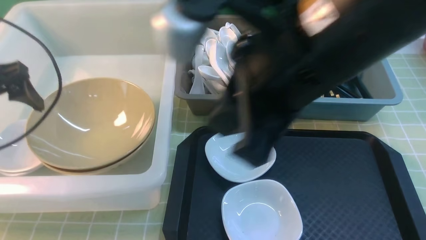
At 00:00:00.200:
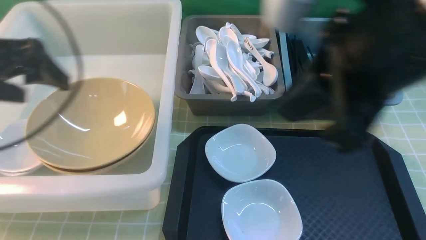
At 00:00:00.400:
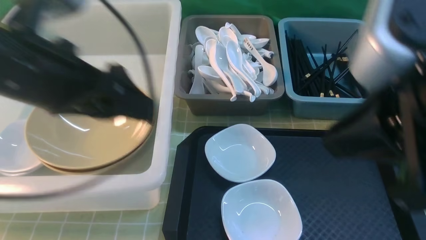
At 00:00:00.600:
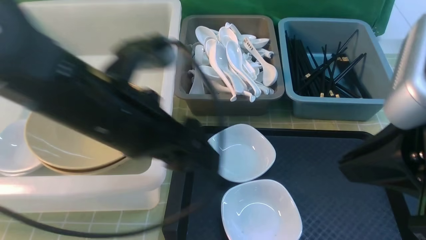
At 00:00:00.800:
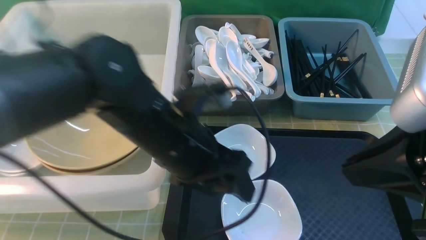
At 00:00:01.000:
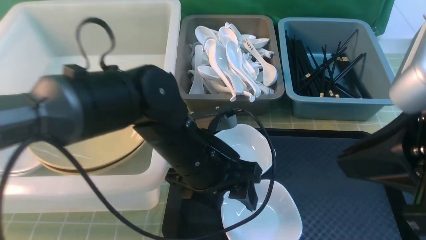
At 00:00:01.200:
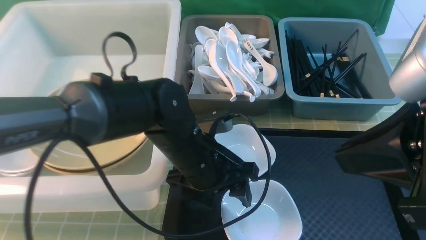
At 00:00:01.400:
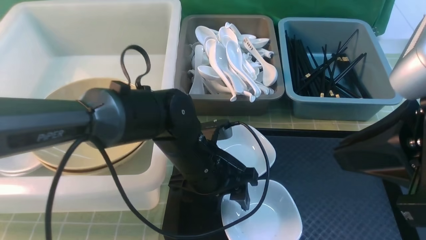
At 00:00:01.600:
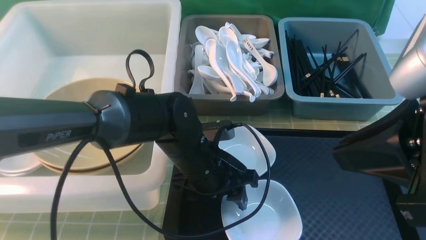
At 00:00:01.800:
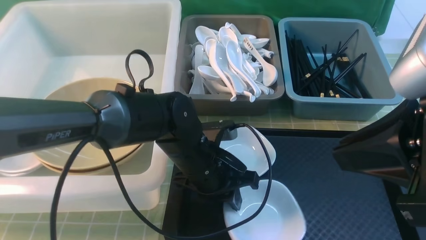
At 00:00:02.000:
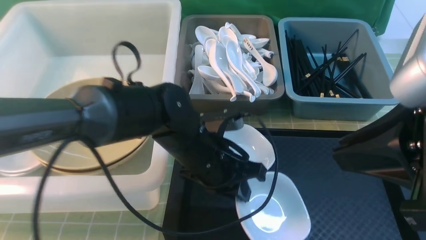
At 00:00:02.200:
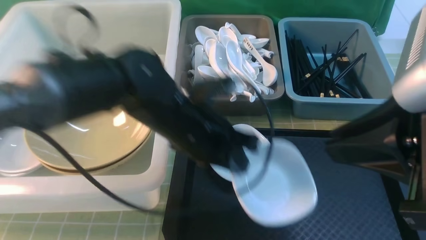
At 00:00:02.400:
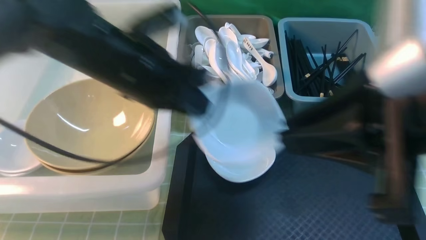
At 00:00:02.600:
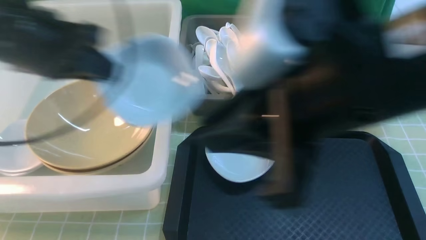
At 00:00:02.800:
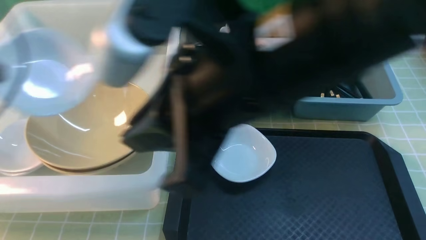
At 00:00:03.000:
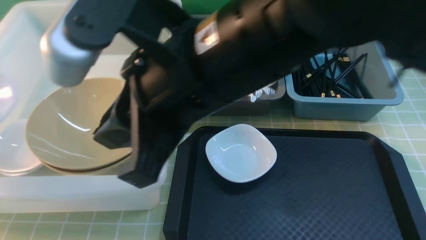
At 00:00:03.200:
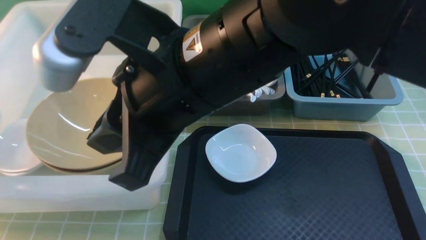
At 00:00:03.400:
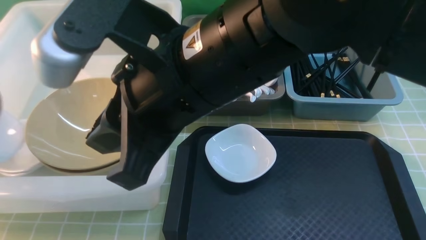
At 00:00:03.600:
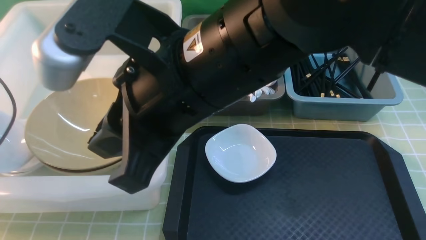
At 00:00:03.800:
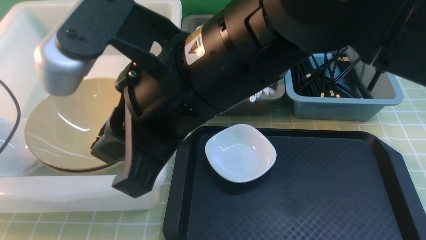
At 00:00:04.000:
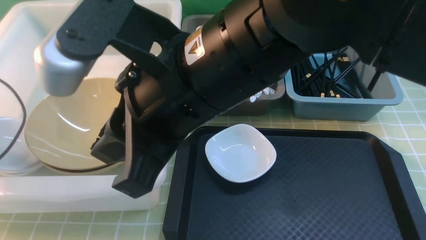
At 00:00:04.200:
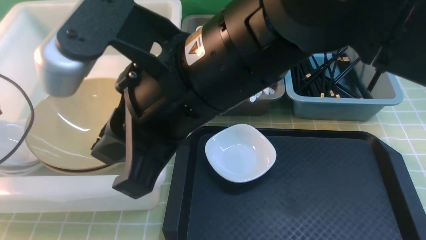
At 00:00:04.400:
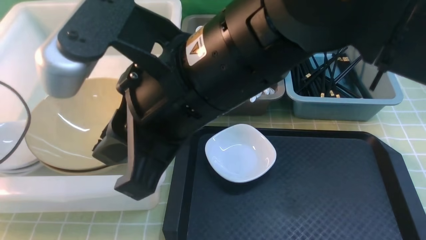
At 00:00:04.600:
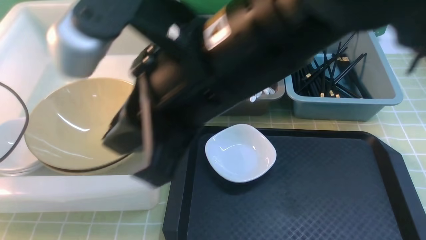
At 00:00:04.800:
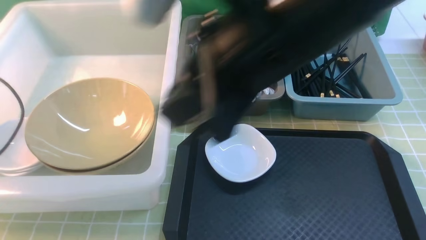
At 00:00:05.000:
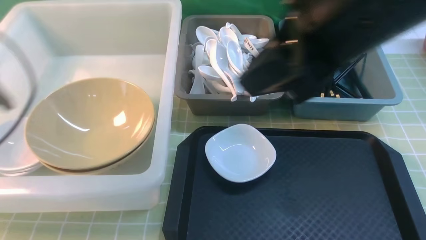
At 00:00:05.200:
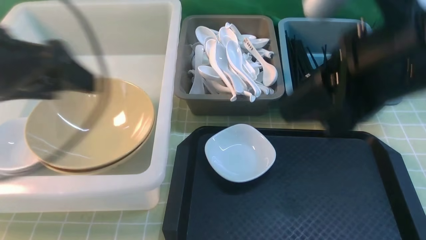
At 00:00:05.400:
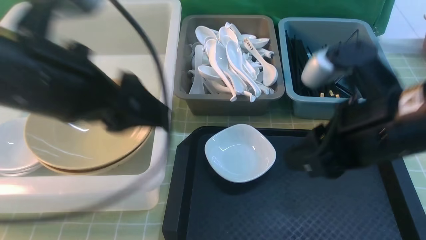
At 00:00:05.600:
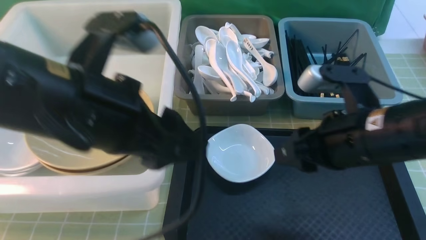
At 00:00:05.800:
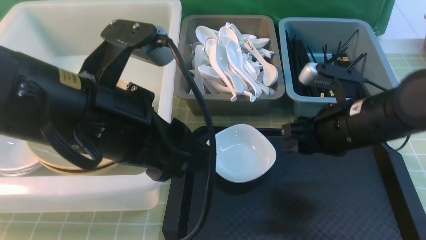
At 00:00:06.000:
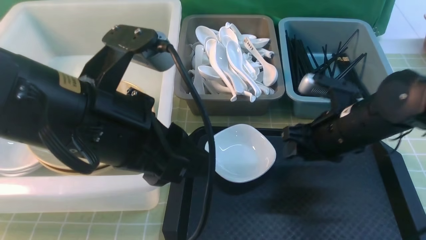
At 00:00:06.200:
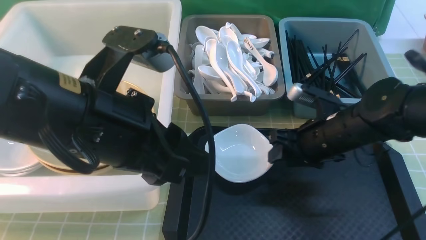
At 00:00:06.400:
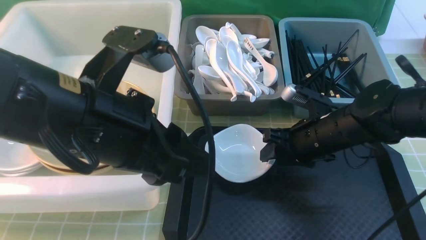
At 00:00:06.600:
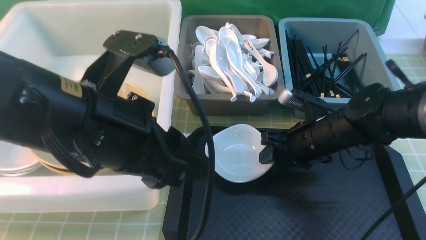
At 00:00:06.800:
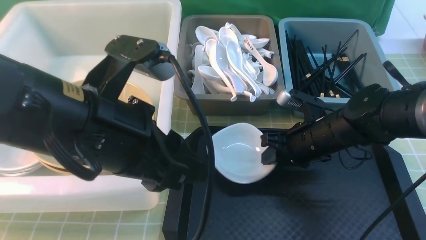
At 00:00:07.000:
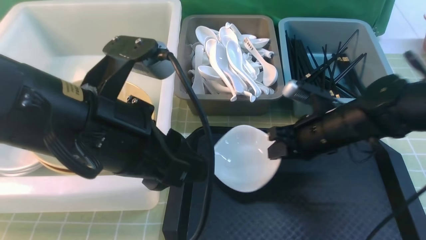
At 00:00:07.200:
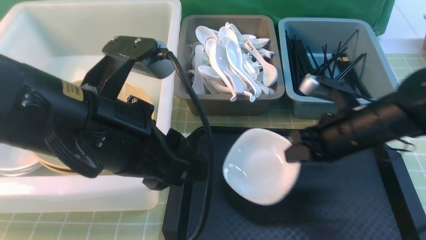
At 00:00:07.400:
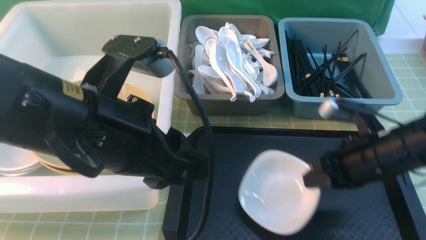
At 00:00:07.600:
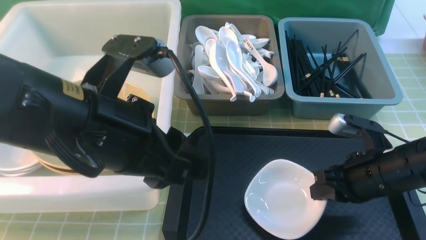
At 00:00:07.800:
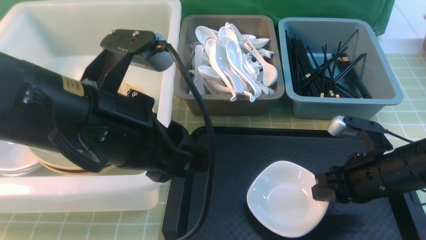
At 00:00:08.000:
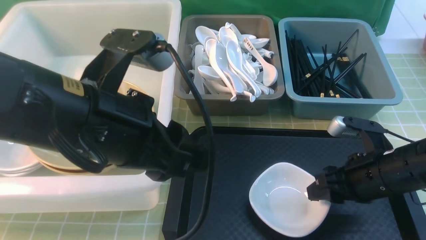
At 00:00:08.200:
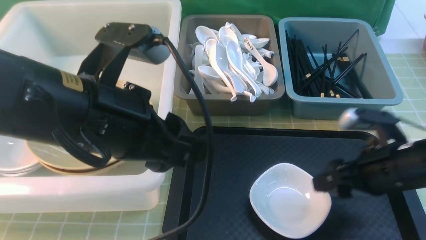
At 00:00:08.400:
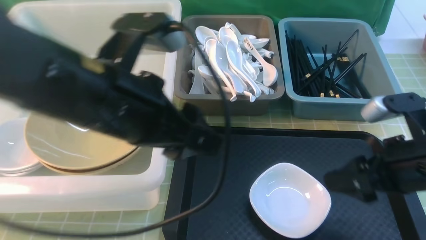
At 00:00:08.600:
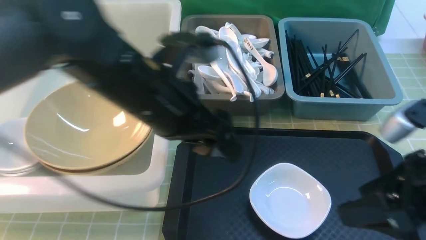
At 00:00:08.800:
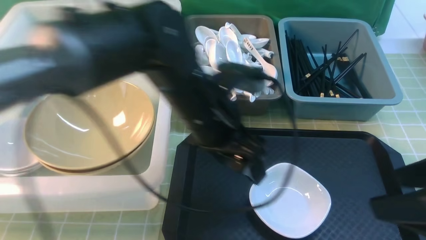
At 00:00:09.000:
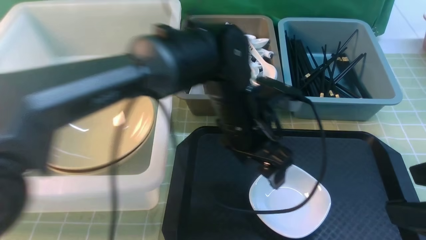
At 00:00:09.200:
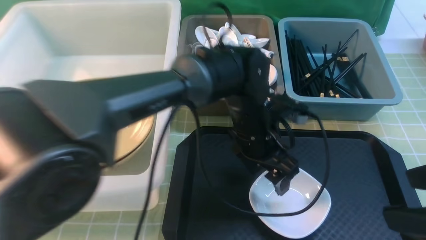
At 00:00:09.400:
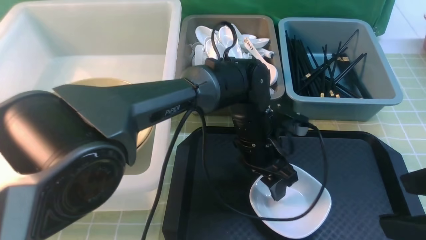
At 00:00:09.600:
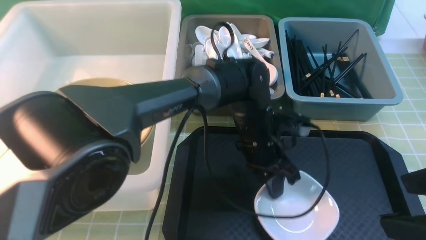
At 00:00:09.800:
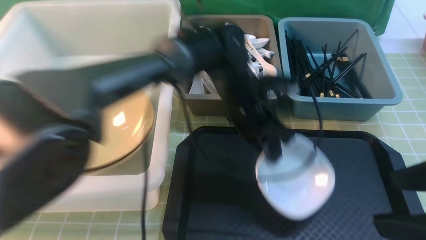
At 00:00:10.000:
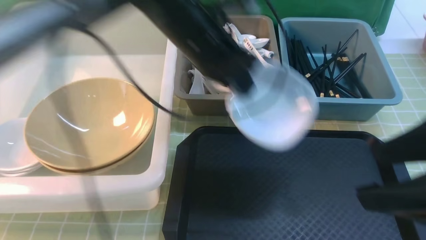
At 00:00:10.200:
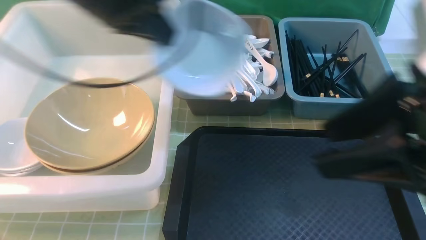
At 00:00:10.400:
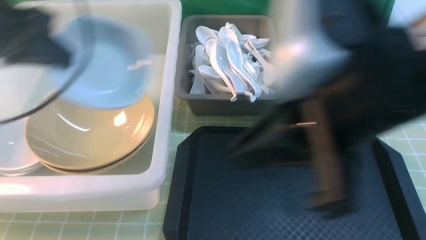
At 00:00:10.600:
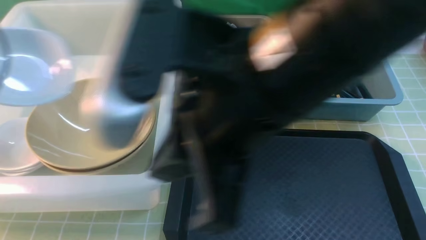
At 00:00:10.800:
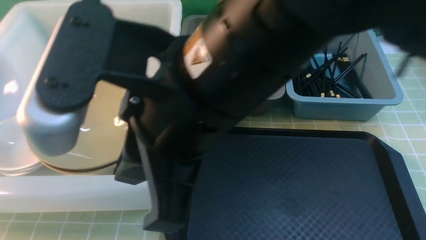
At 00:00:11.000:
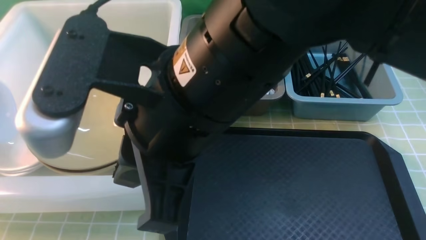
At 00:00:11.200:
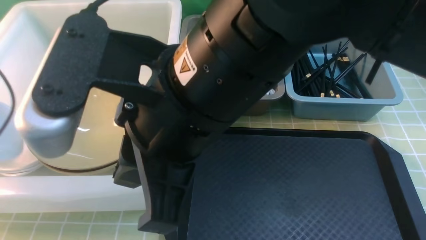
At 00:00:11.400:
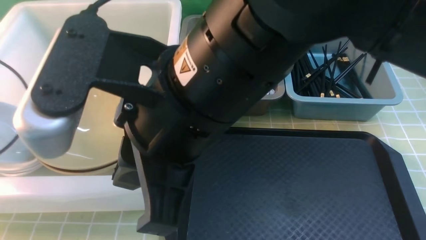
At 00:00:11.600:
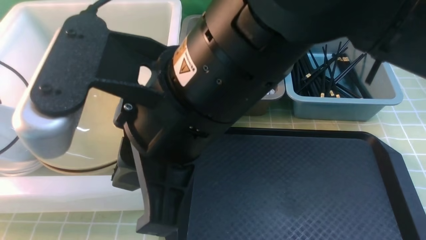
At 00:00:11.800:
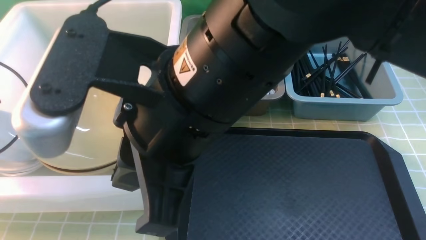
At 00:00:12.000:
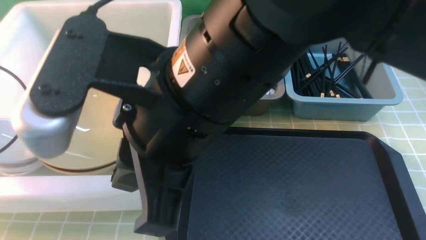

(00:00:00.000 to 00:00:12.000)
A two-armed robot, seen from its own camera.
Task of the whole recording: on green table put chopsticks spoon bowls plates into blue grey white boxes.
Step, 00:00:00.000 - 00:00:01.800: use the left arm to grab the plate.
Step, 00:00:02.000 - 00:00:04.800: use the left arm to put the plate into the large storage box on the left.
Step, 00:00:05.000 - 00:00:07.000: use the right arm to grab the plate.
Step, 00:00:07.200 - 00:00:08.600: use the right arm to put the plate on the tray.
Step, 00:00:08.800 - 00:00:09.800: use the left arm to grab the plate.
00:00:00.000 - 00:00:01.600: The left gripper is displaced to the right and downward by roughly 30 cm, and closes its fingers; the right gripper travels to the right and backward by roughly 10 cm.
00:00:01.600 - 00:00:03.000: The left gripper is displaced to the left and upward by some 40 cm, and closes its fingers. The right gripper moves to the left, some 20 cm.
00:00:03.000 - 00:00:04.400: The left gripper heads downward and forward, covering some 15 cm, and opens.
00:00:04.400 - 00:00:06.000: The left gripper goes roughly 30 cm to the right and backward; the right gripper travels downward, to the right and forward by roughly 30 cm, and opens up.
00:00:06.000 - 00:00:07.600: The right gripper shifts some 5 cm backward, and closes up.
00:00:07.600 - 00:00:09.000: The left gripper shifts approximately 20 cm to the right, forward and downward, and opens its fingers, while the right gripper is displaced upward and backward by roughly 20 cm, and opens.
00:00:09.000 - 00:00:10.400: The right gripper heads to the left and upward, covering about 20 cm, and closes, while the left gripper shifts roughly 35 cm to the left and upward, and closes its fingers.
00:00:10.400 - 00:00:12.000: The right gripper heads to the left, covering roughly 10 cm. The left gripper shifts about 15 cm downward and to the left, and opens.

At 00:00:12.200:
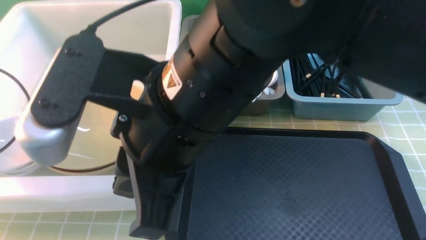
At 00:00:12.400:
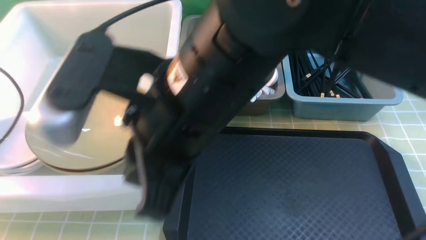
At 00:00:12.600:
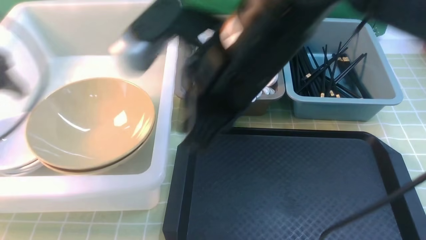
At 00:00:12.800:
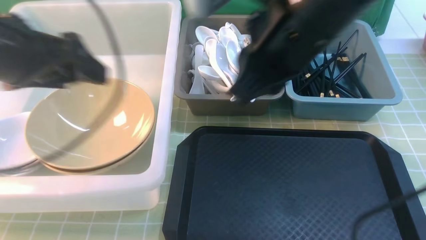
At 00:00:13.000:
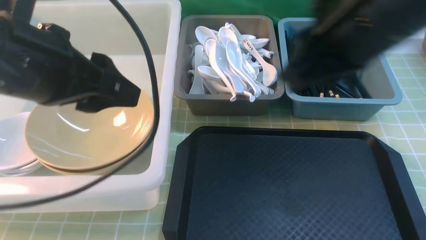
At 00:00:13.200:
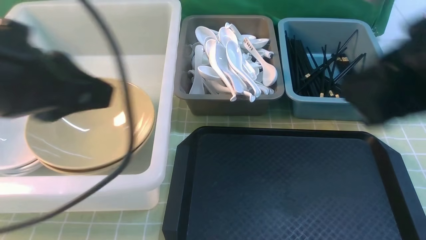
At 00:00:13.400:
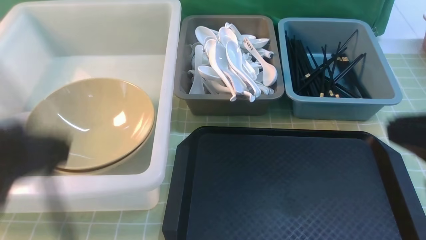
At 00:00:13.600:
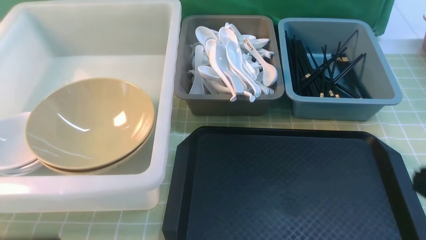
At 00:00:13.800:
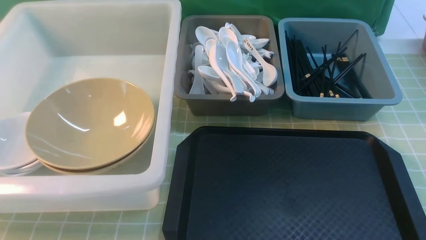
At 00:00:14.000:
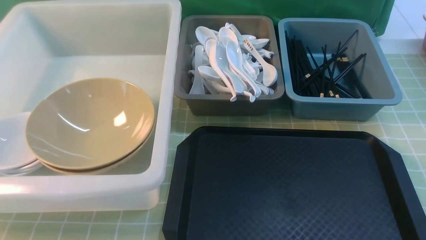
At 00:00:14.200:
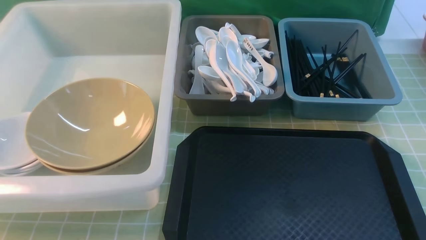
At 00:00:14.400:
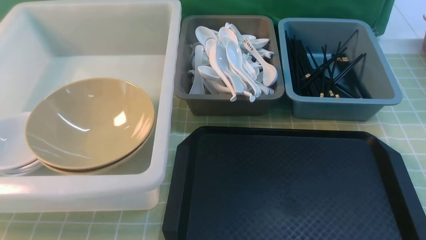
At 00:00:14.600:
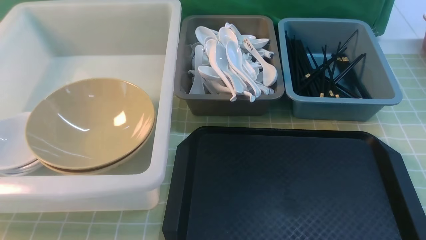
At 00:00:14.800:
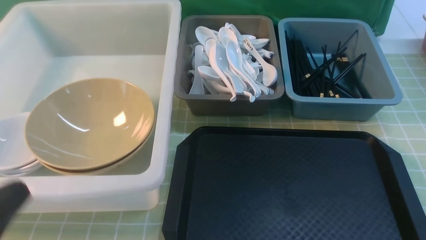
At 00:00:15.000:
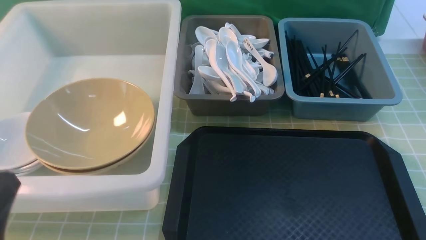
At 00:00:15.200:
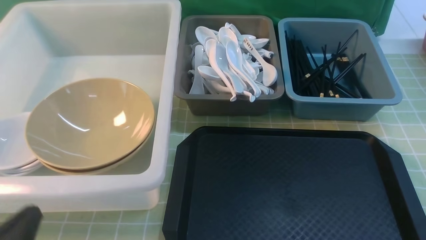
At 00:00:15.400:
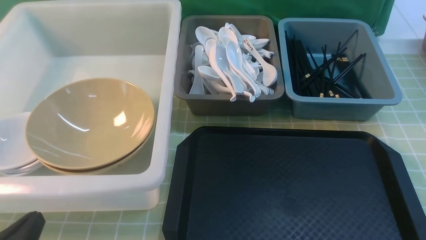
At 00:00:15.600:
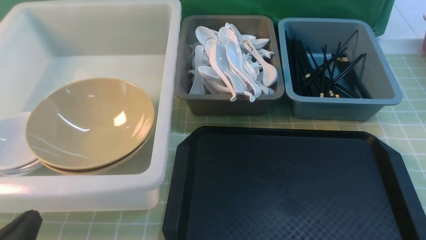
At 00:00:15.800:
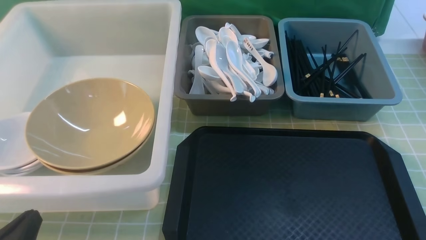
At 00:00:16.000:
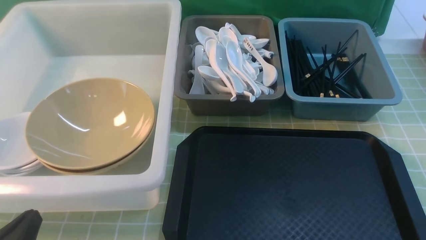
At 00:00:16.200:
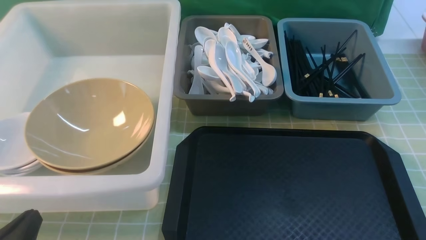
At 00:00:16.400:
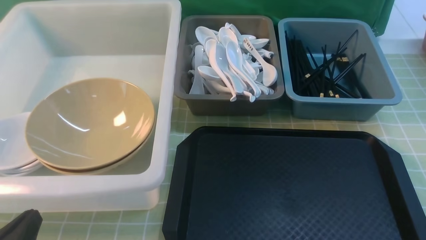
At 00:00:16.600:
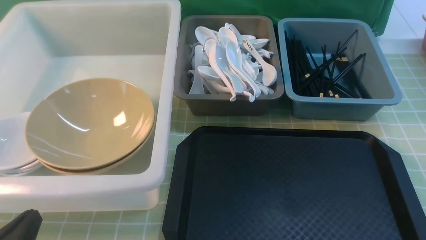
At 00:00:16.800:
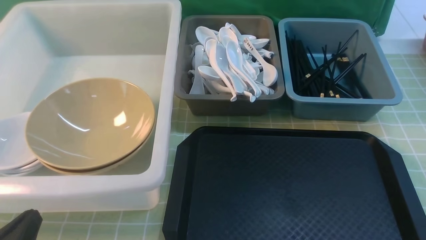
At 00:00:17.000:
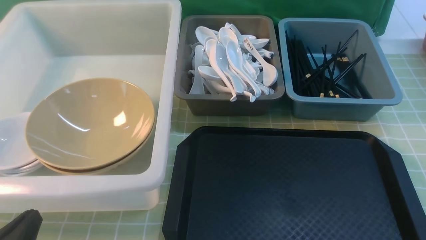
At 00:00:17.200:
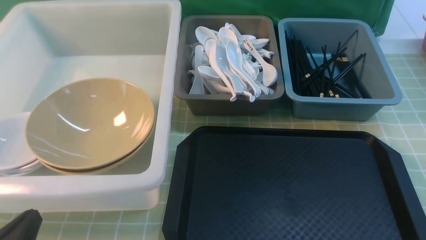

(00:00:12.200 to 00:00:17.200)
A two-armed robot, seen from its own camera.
Task of the whole recording: on green table put chopsticks spoon bowls plates into blue grey white boxes.
00:00:12.200 - 00:00:13.800: The left gripper travels backward and to the right by some 35 cm, and closes its fingers, while the right gripper travels to the right and backward by some 35 cm.
00:00:13.800 - 00:00:15.600: The left gripper heads downward, covering some 15 cm.
